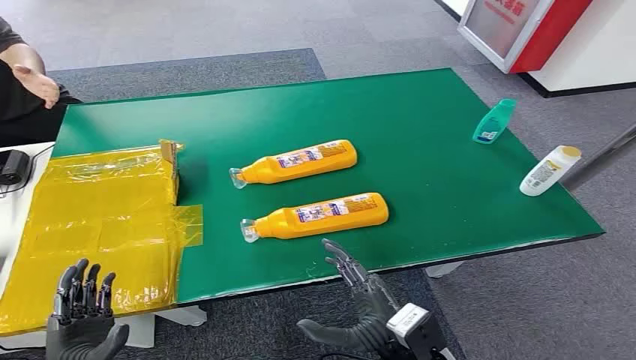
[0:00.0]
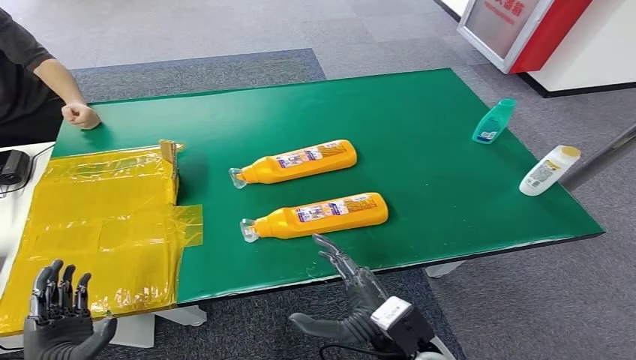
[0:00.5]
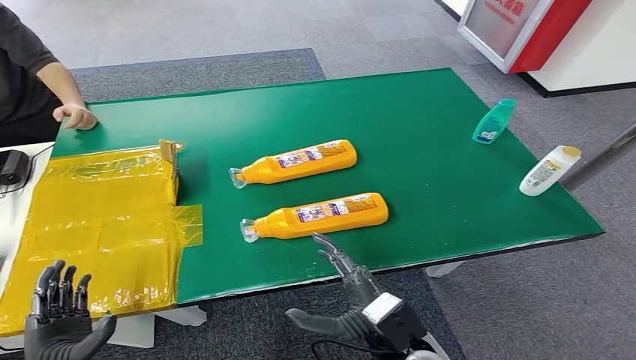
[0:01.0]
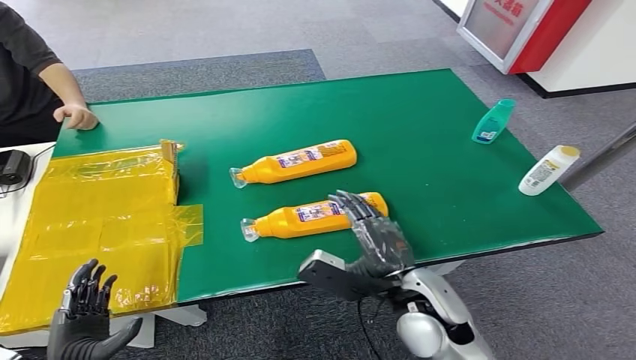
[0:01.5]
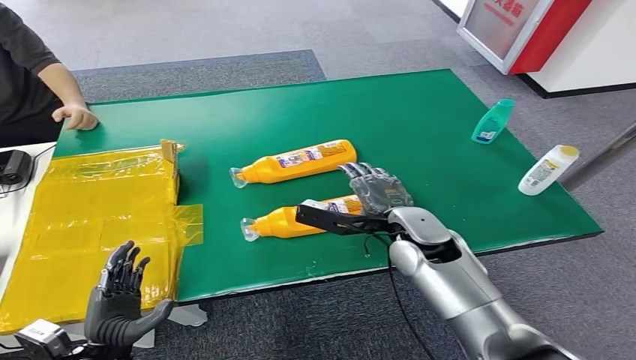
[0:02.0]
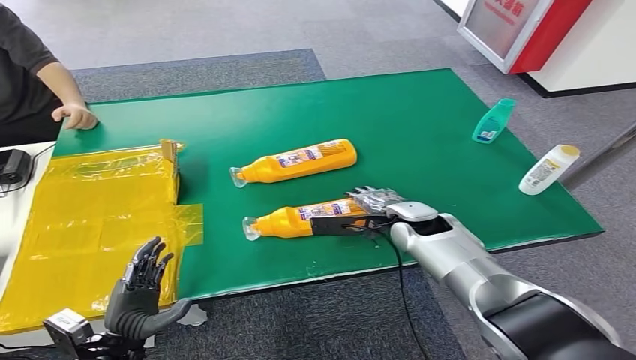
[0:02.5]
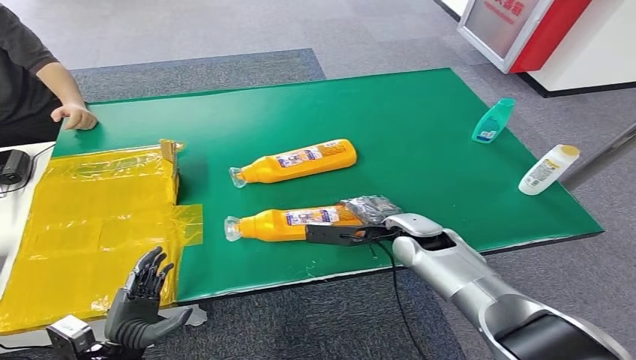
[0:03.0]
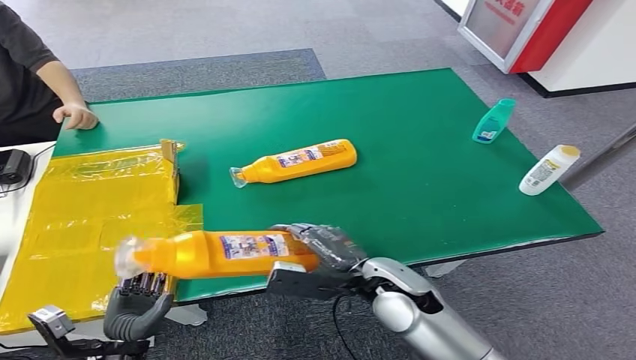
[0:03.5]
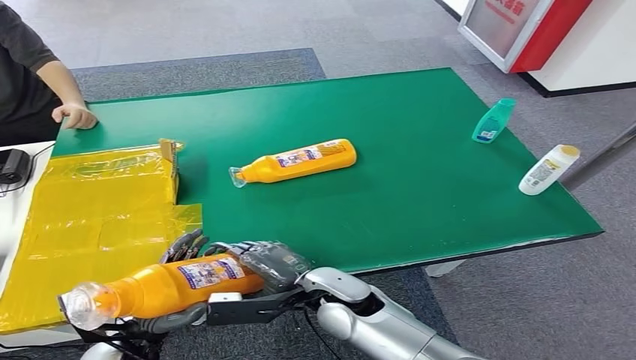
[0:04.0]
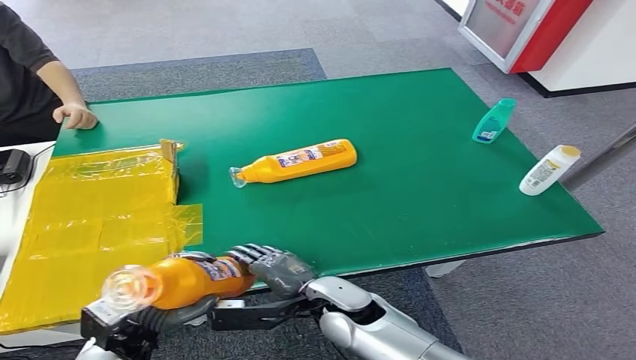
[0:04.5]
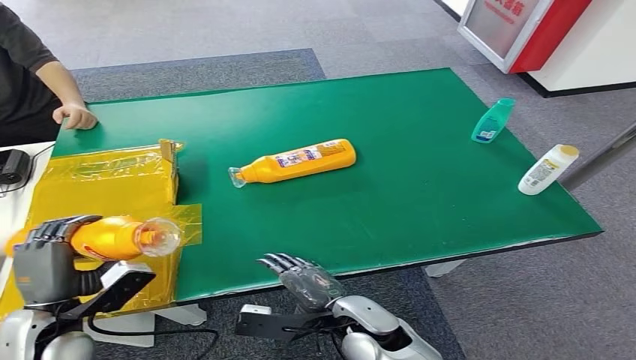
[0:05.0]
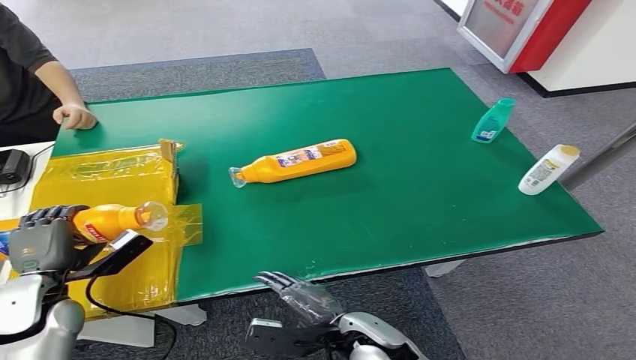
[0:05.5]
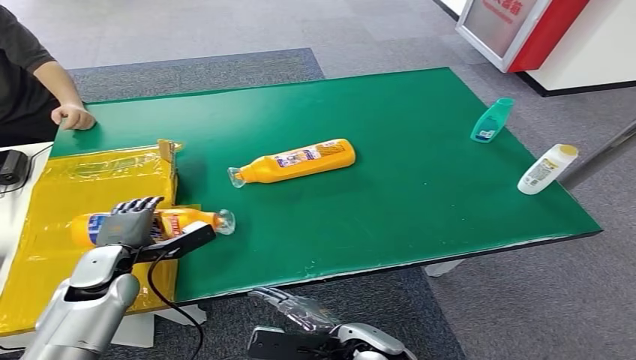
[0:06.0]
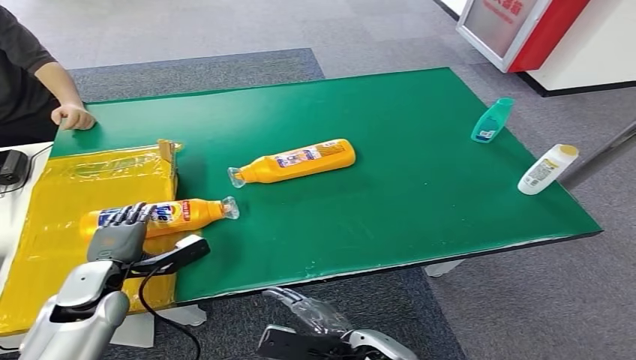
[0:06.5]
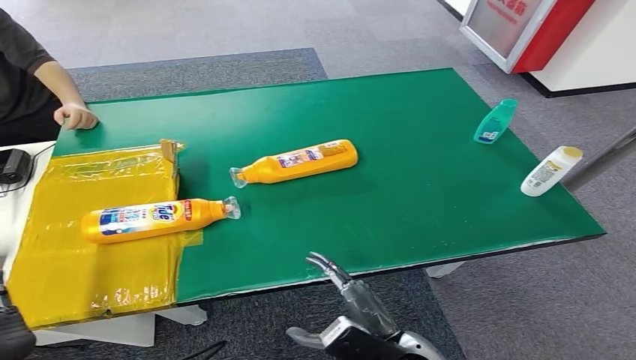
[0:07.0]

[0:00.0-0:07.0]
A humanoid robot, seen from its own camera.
Step, 0:00.0 to 0:03.0: Pick up the bottle from the table.
Step, 0:03.5 to 0:07.0: Turn the bottle to the front side.
0:02.0 to 0:03.5: The right hand travels backward by roughly 5 cm.
0:03.5 to 0:05.0: The left hand goes about 10 cm upward and forward, while the right hand heads downward and backward, covering approximately 10 cm.
0:05.0 to 0:07.0: The left hand is displaced backward by roughly 10 cm, while the right hand shifts approximately 10 cm backward and to the right.
